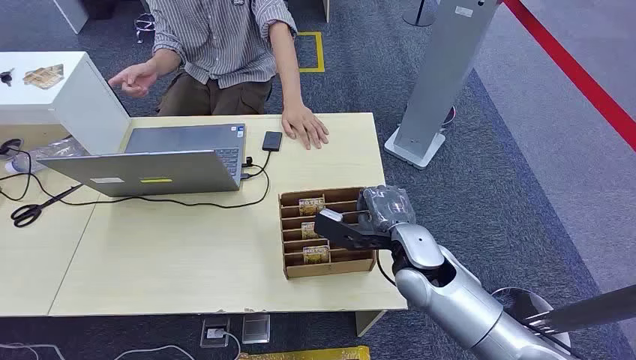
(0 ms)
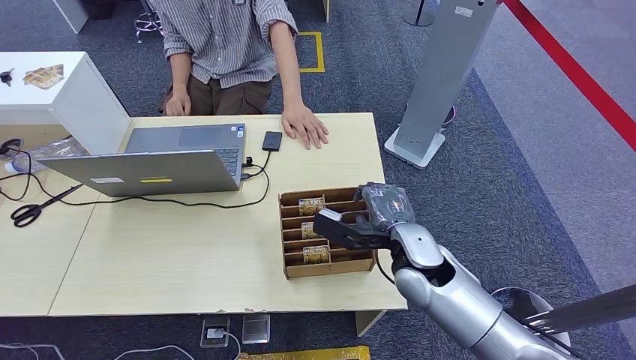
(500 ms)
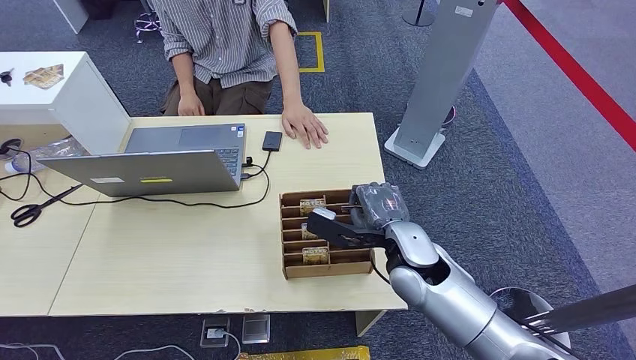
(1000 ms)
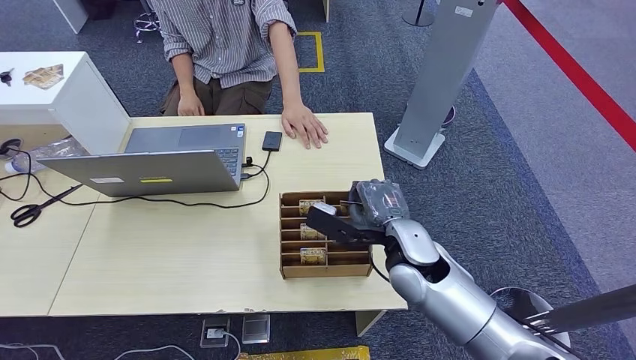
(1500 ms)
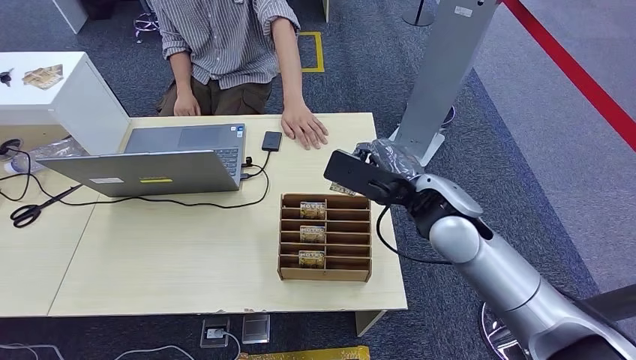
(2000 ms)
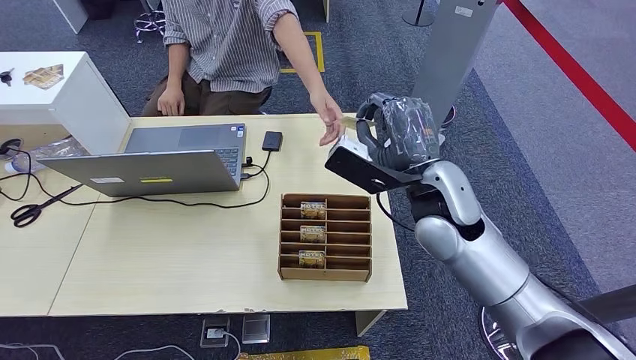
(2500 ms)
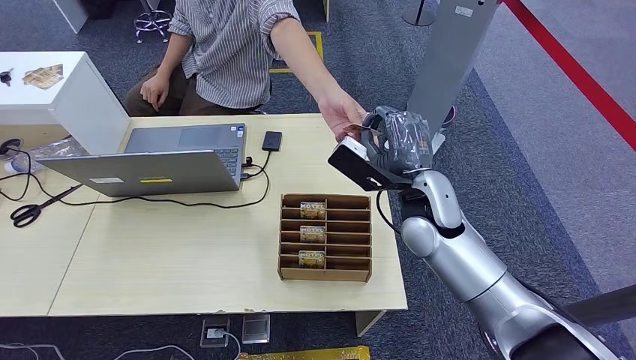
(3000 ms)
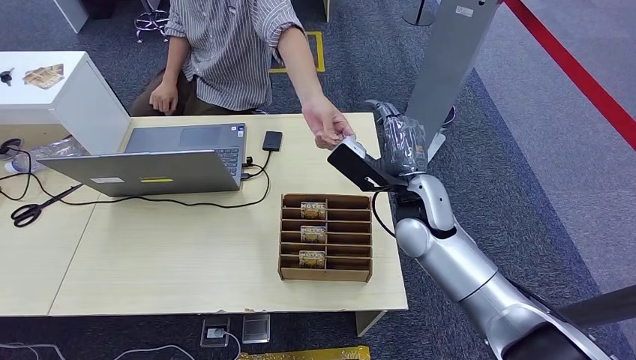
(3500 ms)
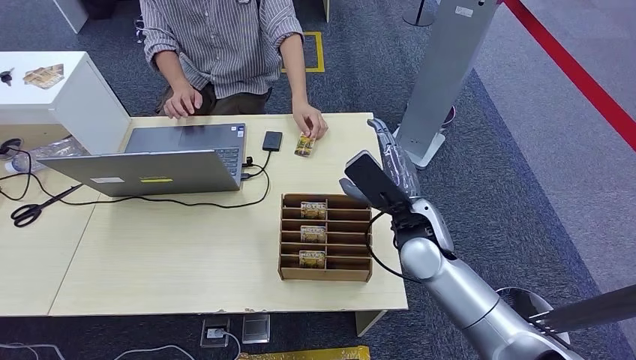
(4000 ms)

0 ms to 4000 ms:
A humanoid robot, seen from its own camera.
Step, 0 ms to 1500 ms: Pick up the key card from the card box.
Step, 3500 ms to 4000 ms: Hand the key card to the target.
2000 ms to 4000 ms: The right hand goes some 5 cm downward.
